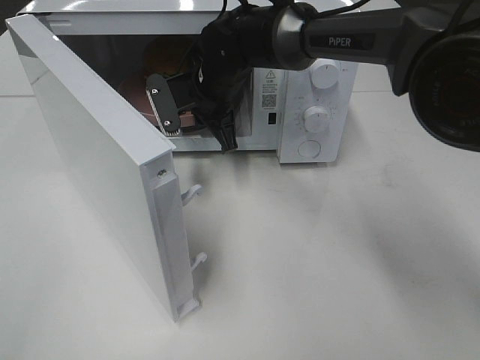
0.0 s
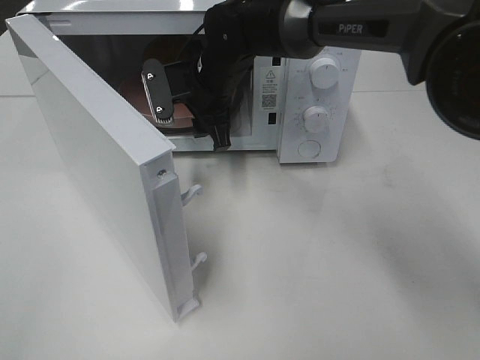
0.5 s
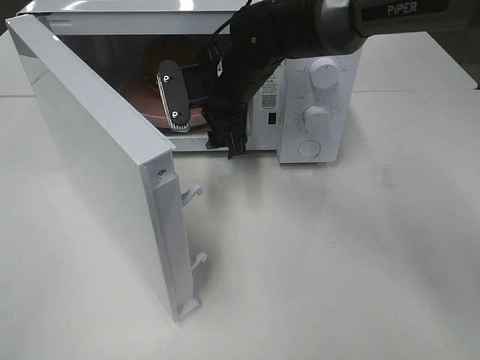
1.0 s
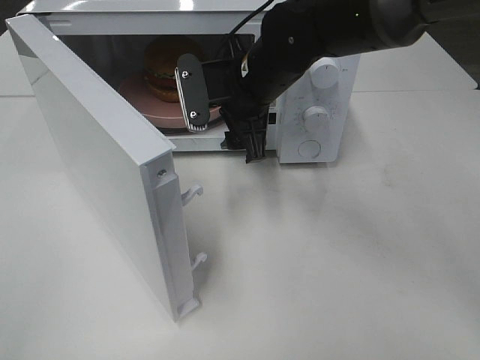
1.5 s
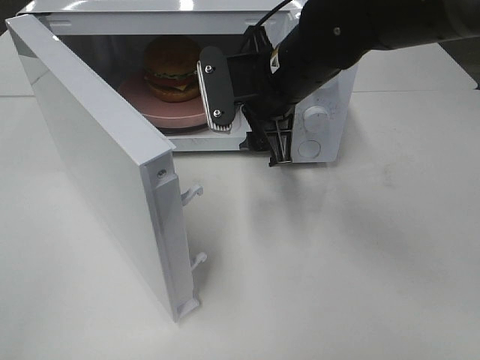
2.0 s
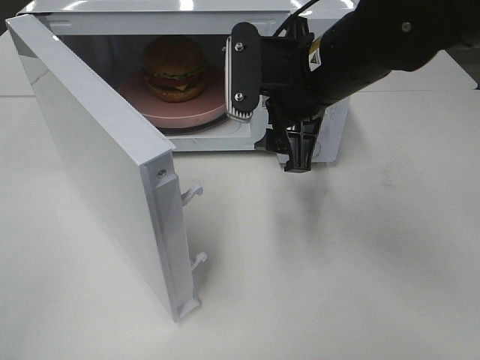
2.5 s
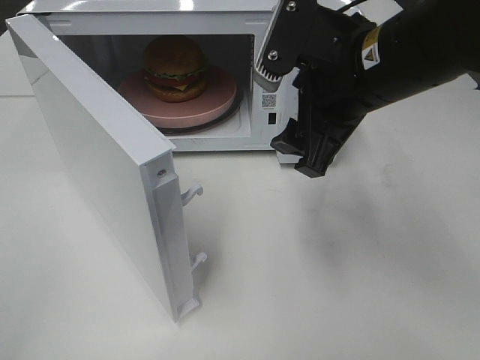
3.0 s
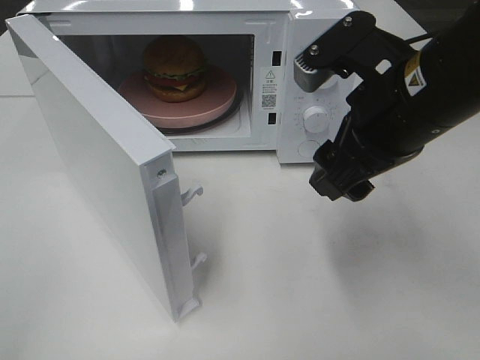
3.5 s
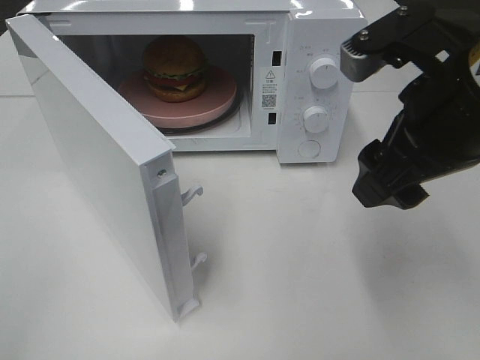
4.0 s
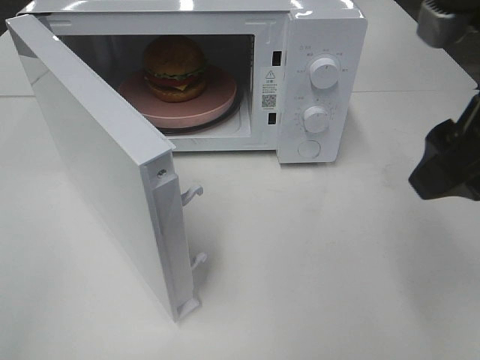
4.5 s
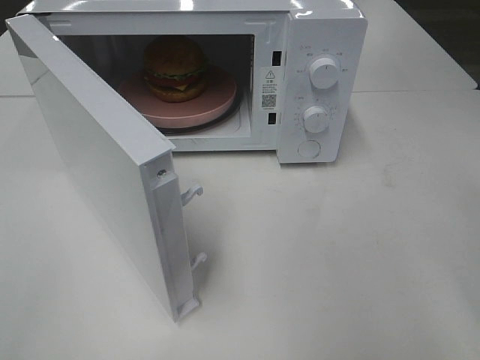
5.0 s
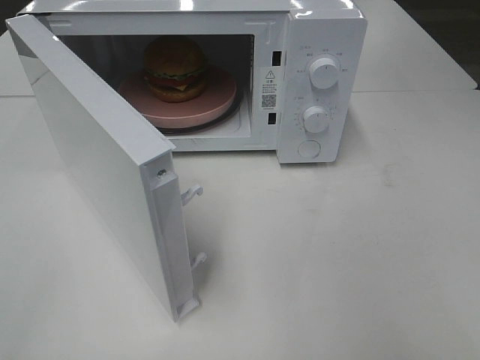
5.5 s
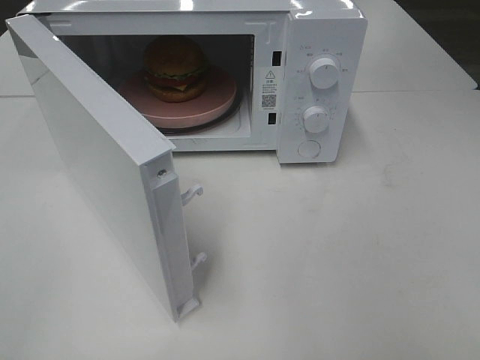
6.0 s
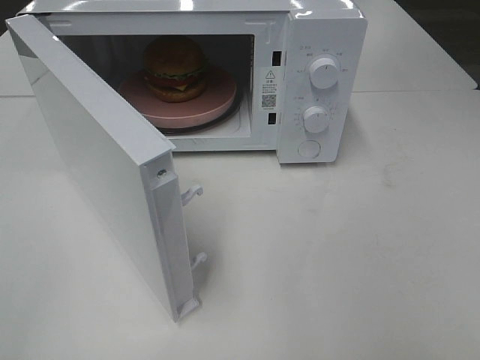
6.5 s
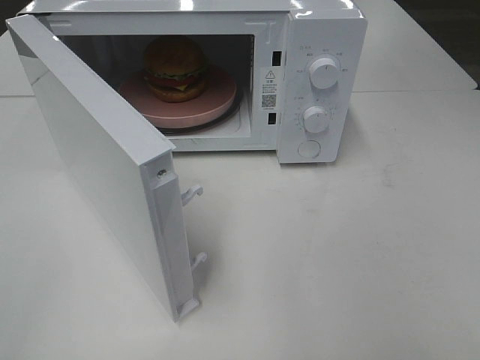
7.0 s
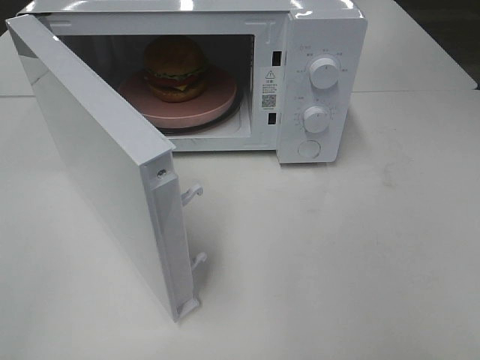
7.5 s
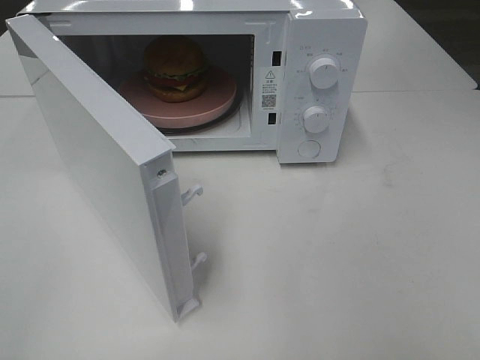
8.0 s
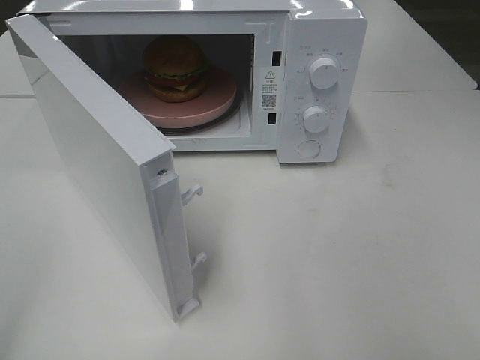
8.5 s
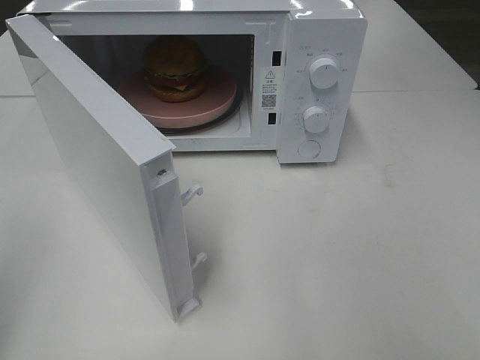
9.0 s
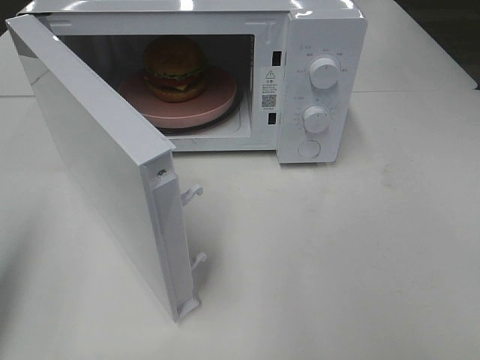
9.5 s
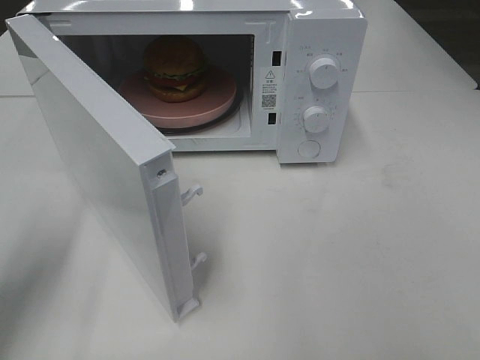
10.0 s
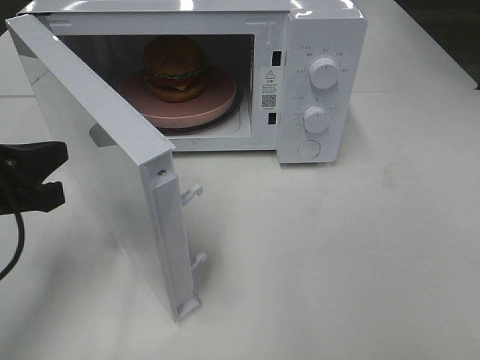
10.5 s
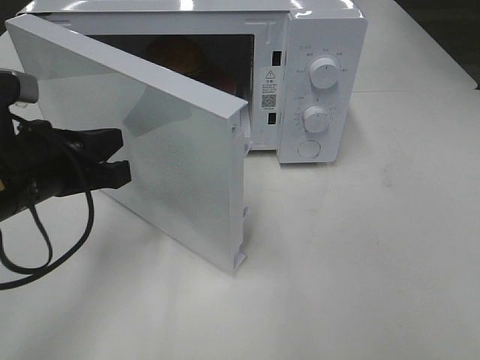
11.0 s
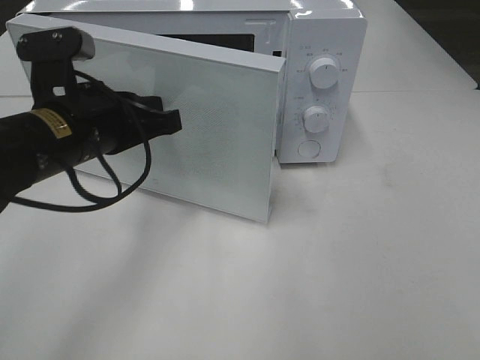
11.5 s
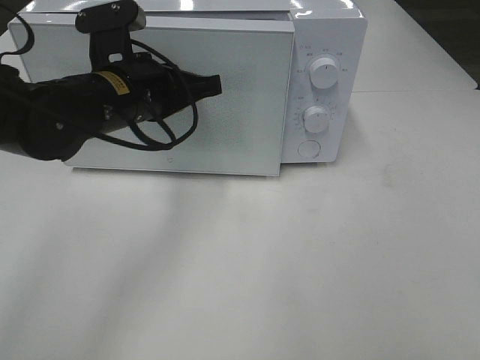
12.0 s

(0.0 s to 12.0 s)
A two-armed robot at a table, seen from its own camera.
Task of the whole recording: Heat the burger.
0.0 s - 2.0 s: The right gripper moves backward, to the right and upward, some 15 cm, and opens up.
2.0 s - 4.0 s: The right gripper is displaced backward, to the right and upward by about 20 cm.
4.0 s - 6.0 s: The right gripper goes about 25 cm backward and to the right.
8.0 s - 10.0 s: The left gripper travels forward and downward by roughly 20 cm, and closes.
10.0 s - 12.0 s: The left gripper shifts some 25 cm to the right and forward.

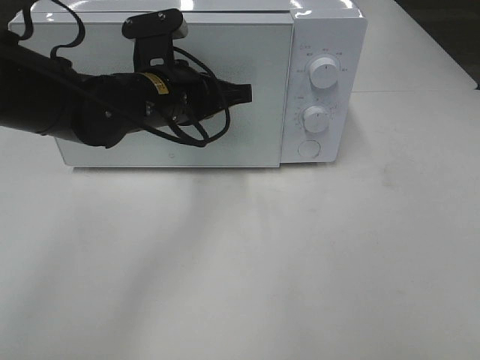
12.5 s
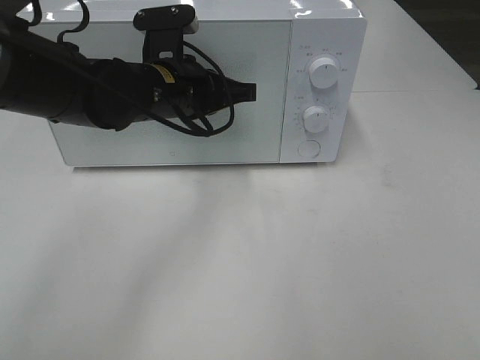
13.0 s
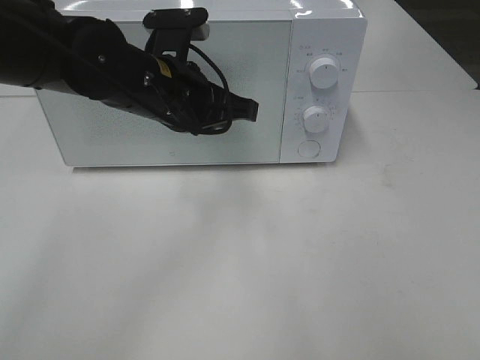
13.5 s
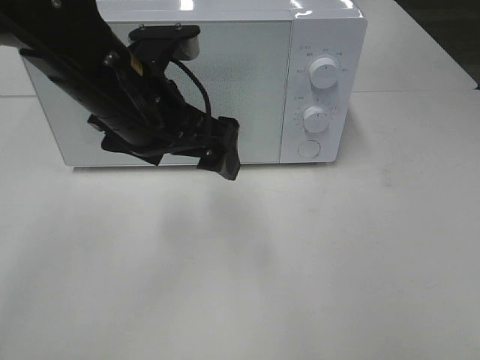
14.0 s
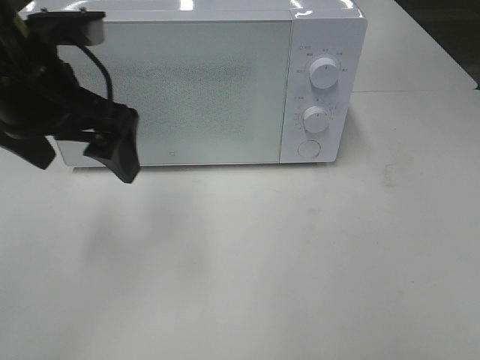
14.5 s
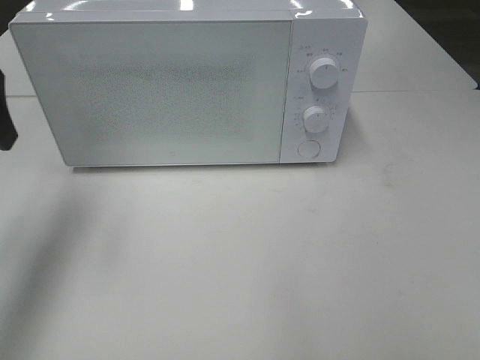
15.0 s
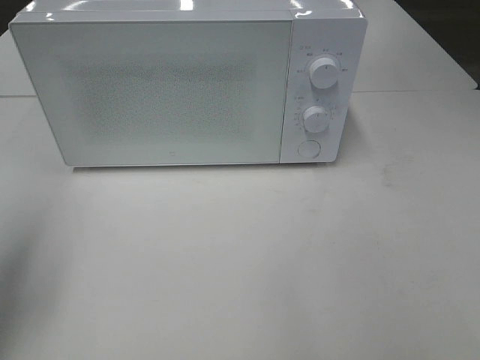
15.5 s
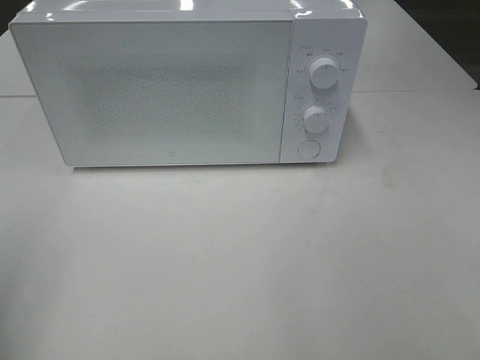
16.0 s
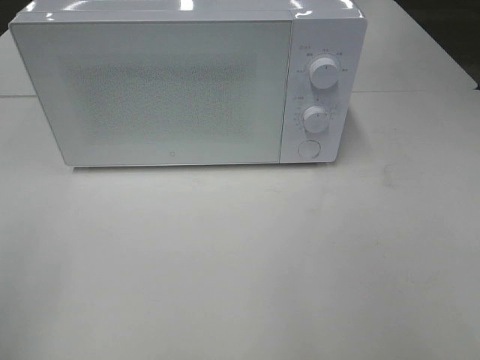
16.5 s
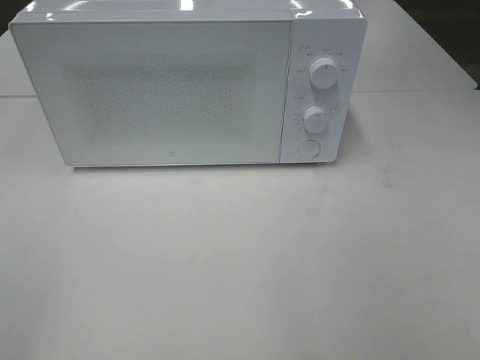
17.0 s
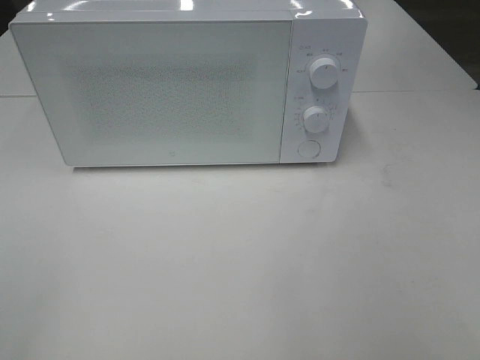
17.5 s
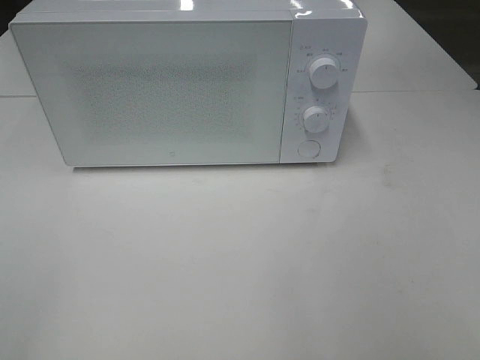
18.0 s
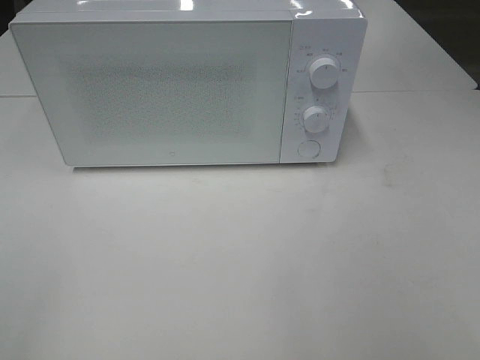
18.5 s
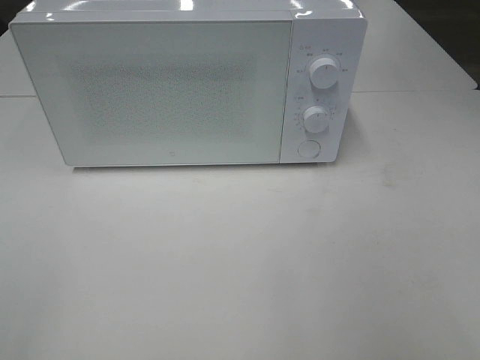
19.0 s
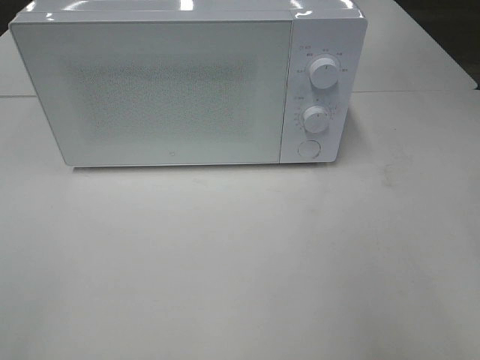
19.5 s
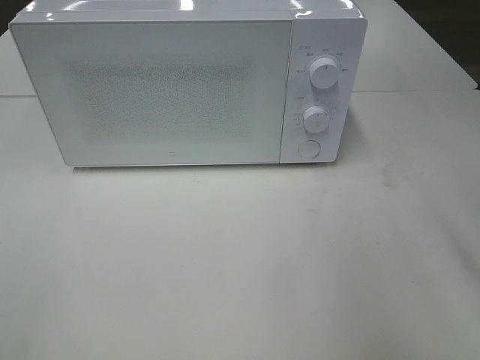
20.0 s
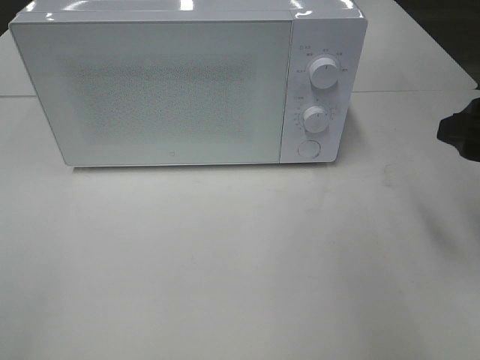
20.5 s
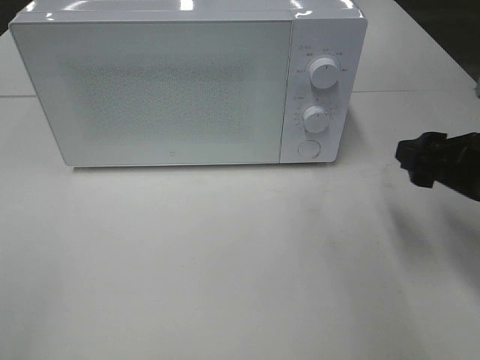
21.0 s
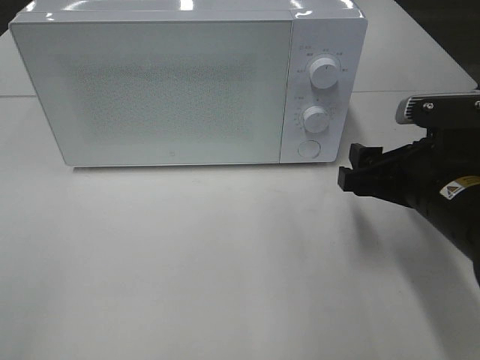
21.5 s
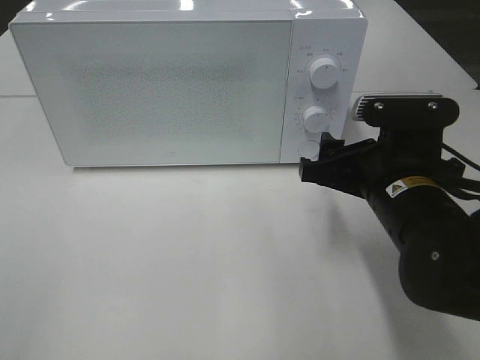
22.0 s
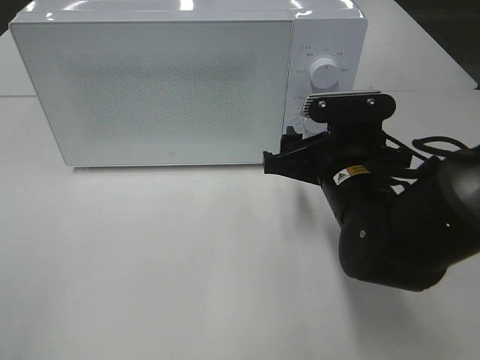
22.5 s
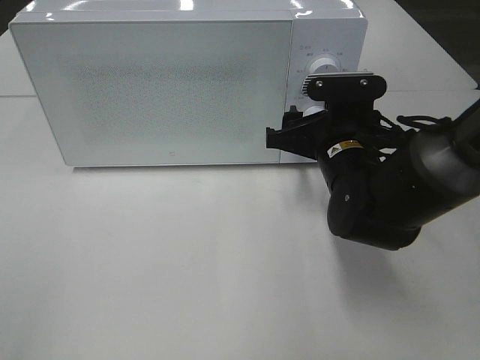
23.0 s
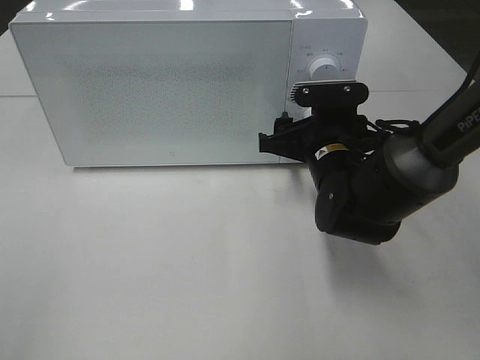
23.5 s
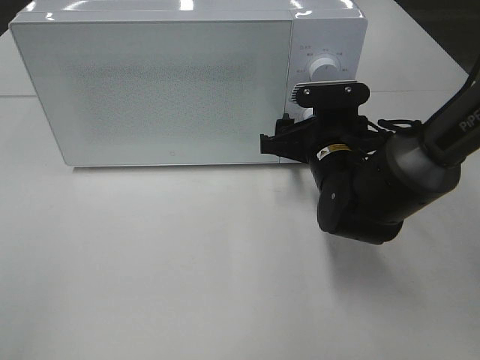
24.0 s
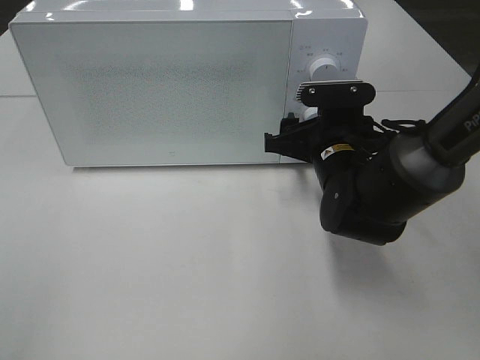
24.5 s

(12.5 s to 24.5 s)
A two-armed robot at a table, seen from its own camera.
Task of the whole recording: Heat the burger.
12.5 s - 14.5 s: The left gripper moves to the left, upward and backward, roughly 15 cm, and opens.
14.5 s - 16.5 s: The left gripper travels backward and to the left by some 25 cm.
18.5 s - 20.5 s: The right gripper is displaced forward by approximately 20 cm.
20.5 s - 22.5 s: The right gripper is displaced to the left, downward and forward by approximately 20 cm.
22.5 s - 24.5 s: The right gripper moves forward, roughly 5 cm.

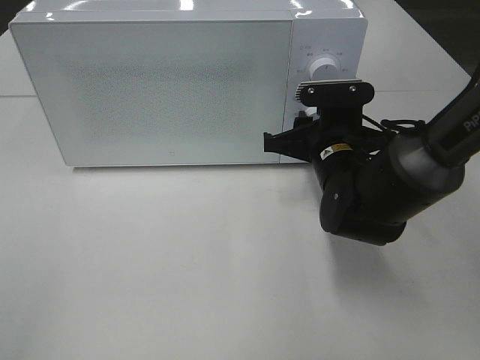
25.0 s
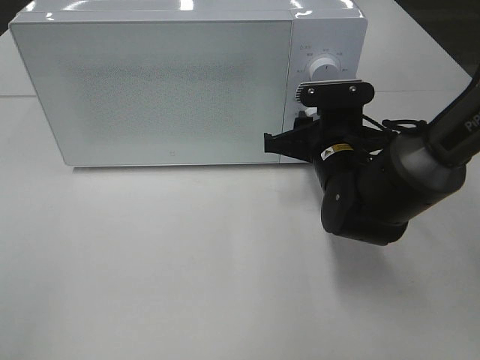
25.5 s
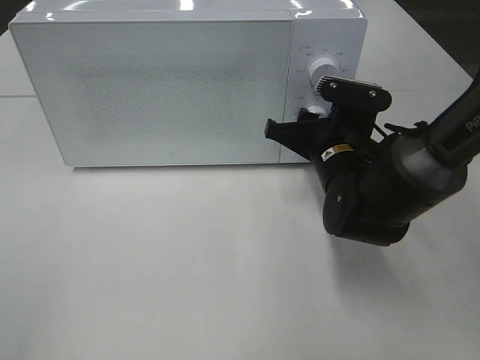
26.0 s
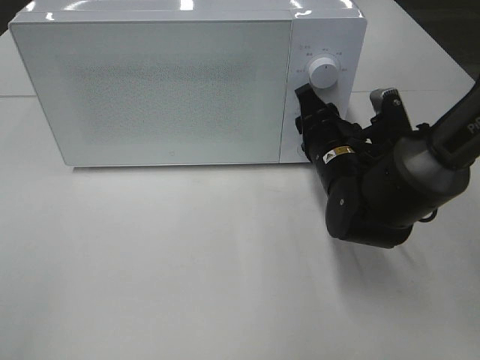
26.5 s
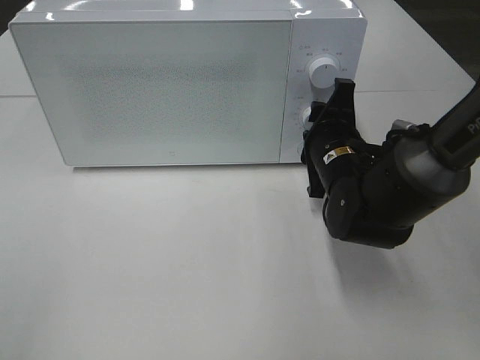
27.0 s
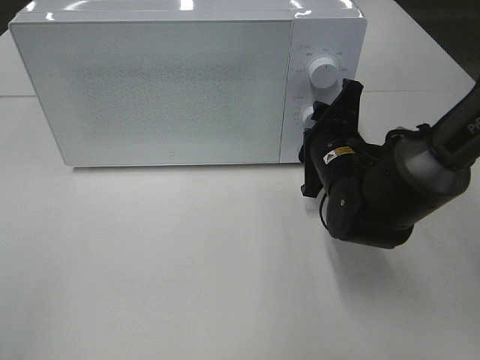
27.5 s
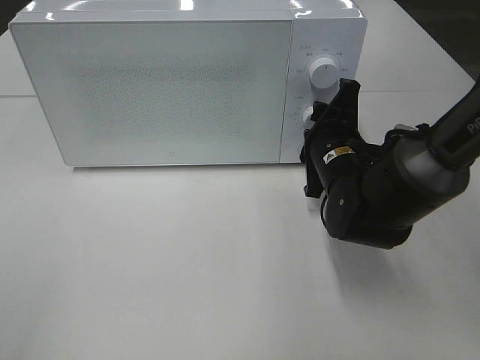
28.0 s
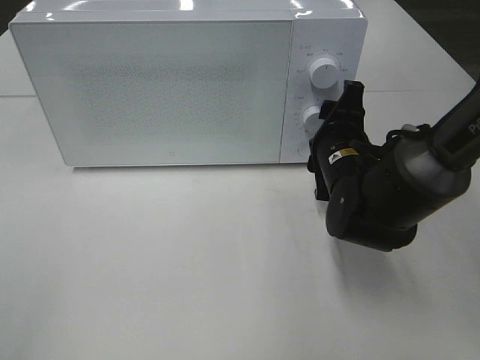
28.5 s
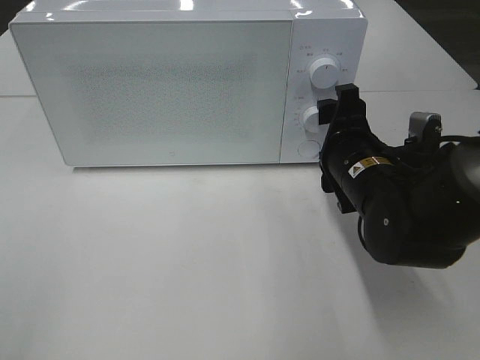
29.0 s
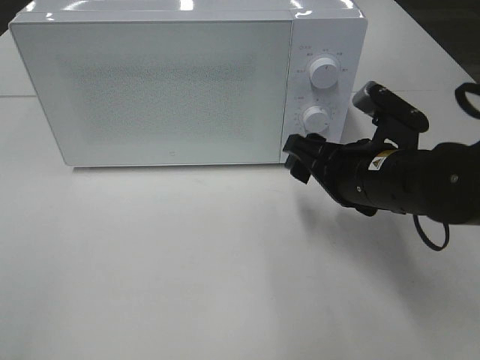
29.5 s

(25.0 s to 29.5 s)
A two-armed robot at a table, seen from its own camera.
Task of the whole recording: Heat the burger.
Step, 25.0 s - 28.0 s: Right hand: twist timer button.
27.0 s - 29.5 s: The right gripper travels backward by roughly 5 cm.
